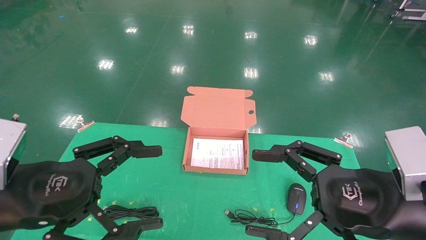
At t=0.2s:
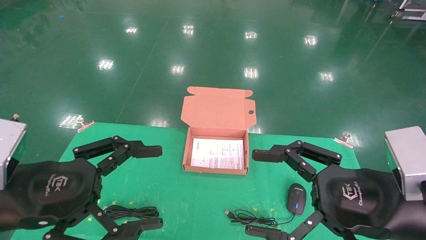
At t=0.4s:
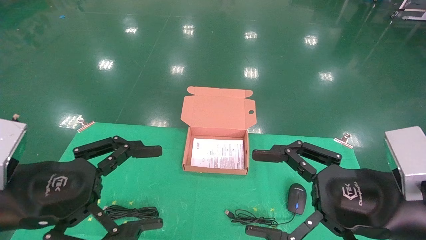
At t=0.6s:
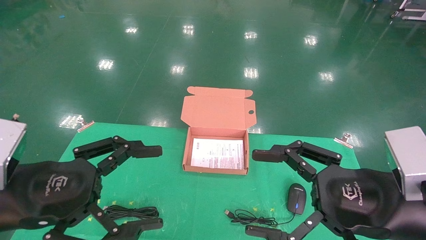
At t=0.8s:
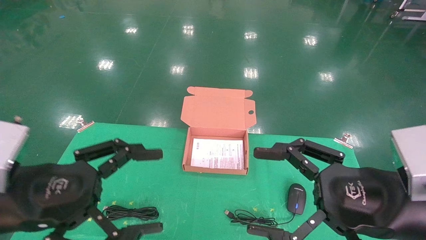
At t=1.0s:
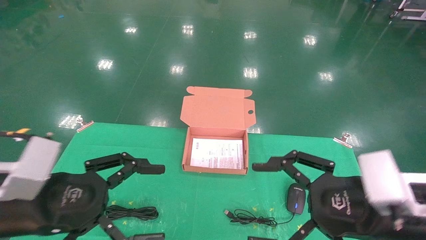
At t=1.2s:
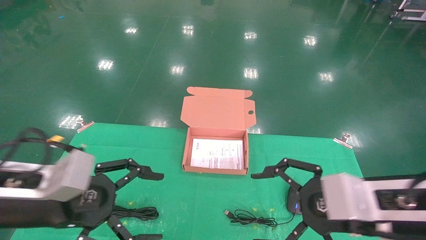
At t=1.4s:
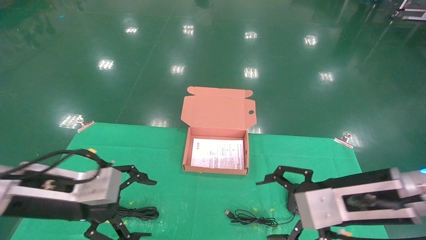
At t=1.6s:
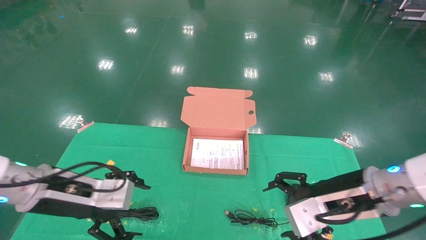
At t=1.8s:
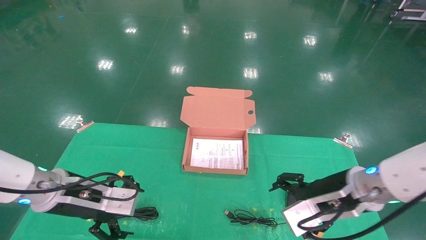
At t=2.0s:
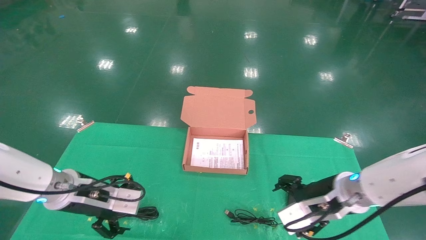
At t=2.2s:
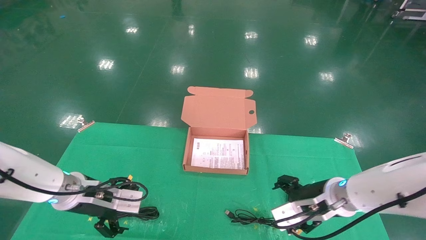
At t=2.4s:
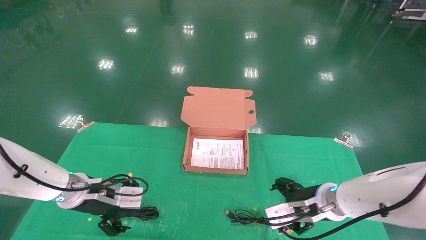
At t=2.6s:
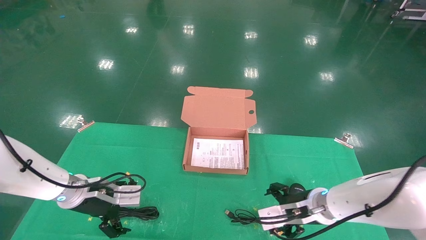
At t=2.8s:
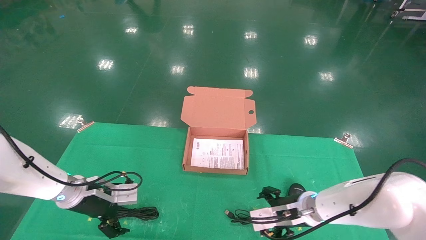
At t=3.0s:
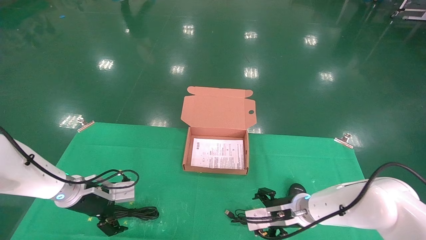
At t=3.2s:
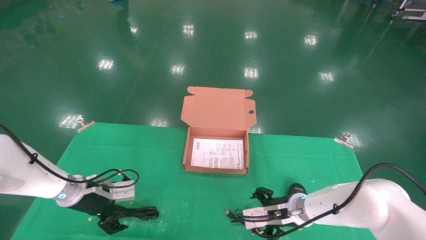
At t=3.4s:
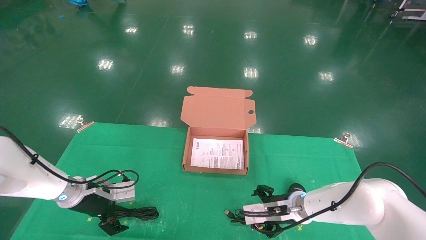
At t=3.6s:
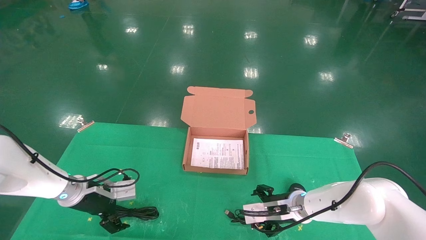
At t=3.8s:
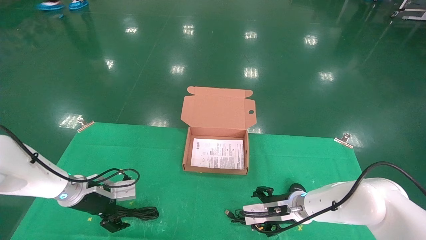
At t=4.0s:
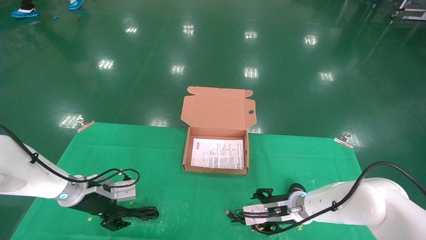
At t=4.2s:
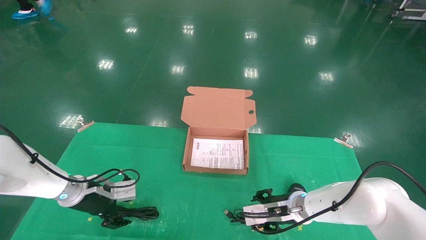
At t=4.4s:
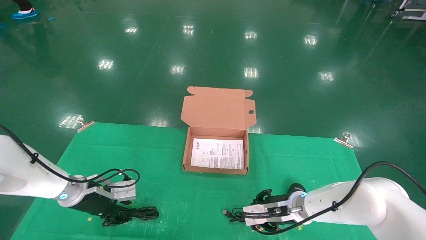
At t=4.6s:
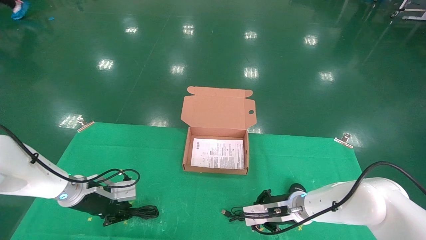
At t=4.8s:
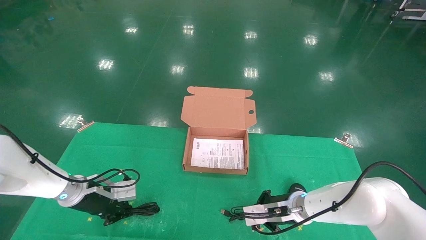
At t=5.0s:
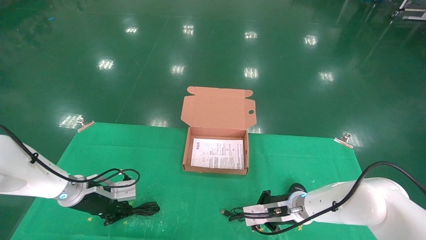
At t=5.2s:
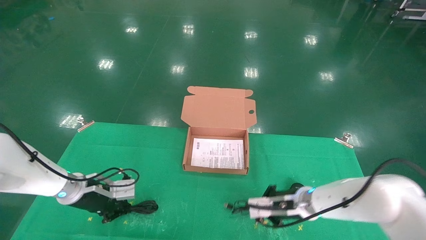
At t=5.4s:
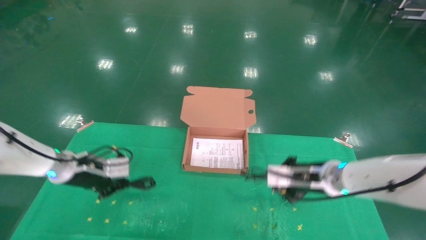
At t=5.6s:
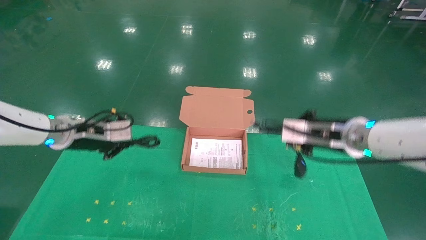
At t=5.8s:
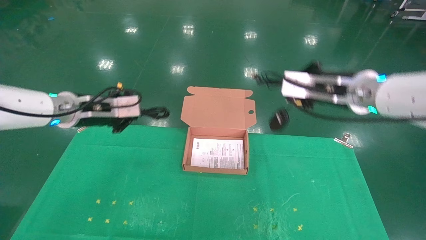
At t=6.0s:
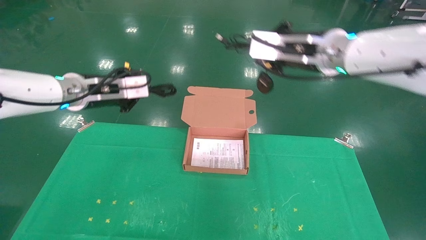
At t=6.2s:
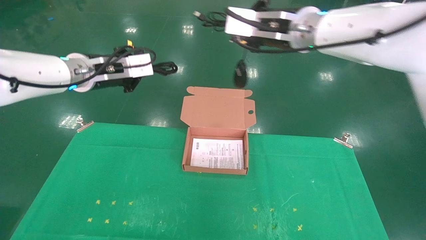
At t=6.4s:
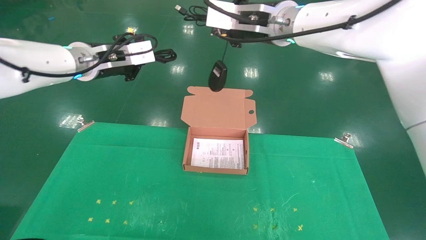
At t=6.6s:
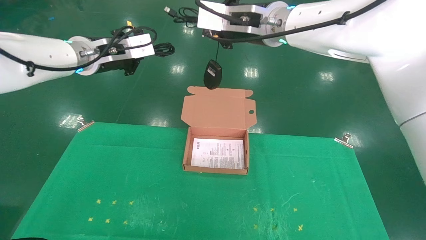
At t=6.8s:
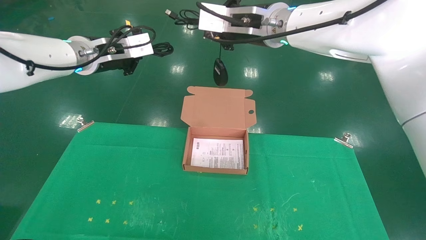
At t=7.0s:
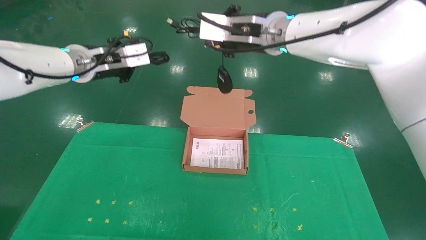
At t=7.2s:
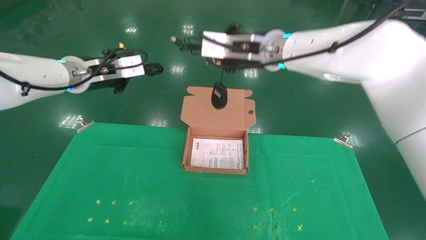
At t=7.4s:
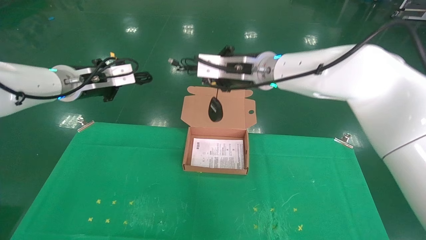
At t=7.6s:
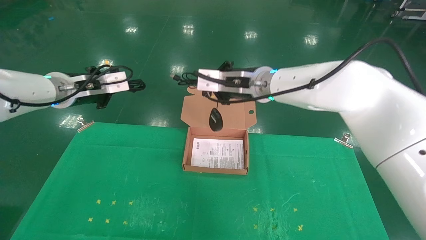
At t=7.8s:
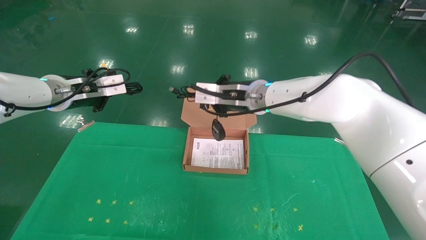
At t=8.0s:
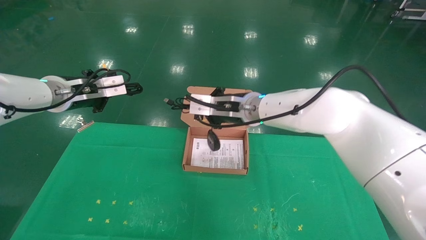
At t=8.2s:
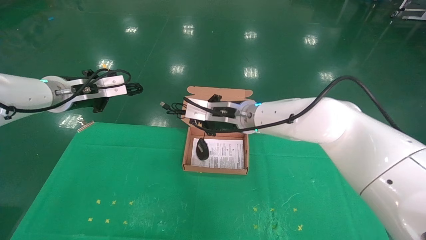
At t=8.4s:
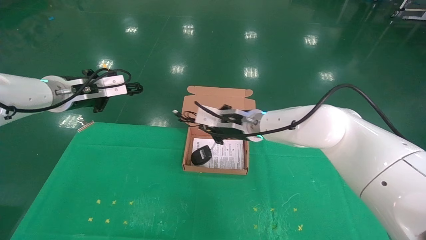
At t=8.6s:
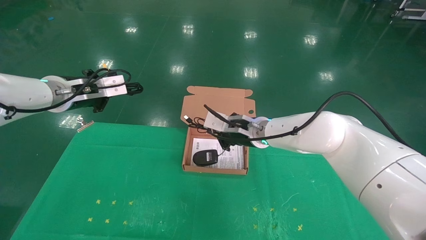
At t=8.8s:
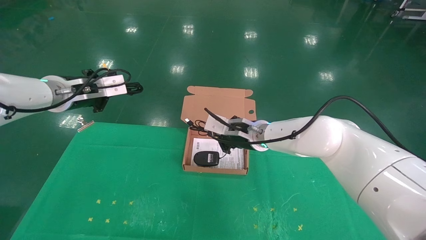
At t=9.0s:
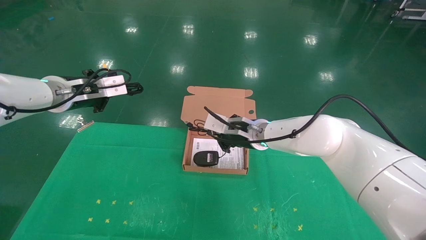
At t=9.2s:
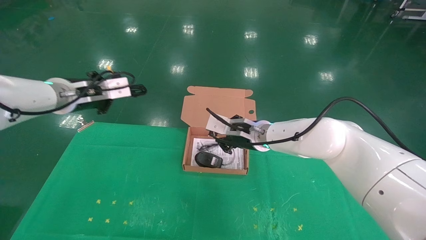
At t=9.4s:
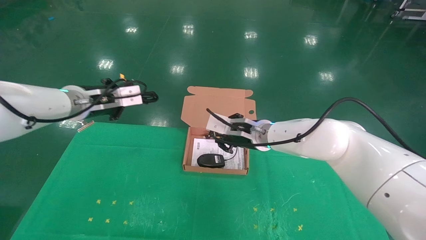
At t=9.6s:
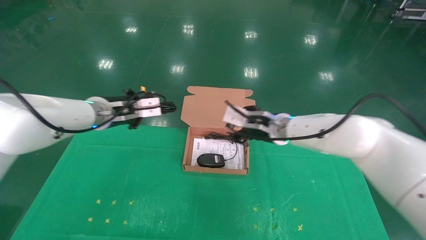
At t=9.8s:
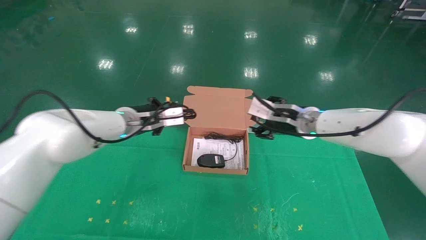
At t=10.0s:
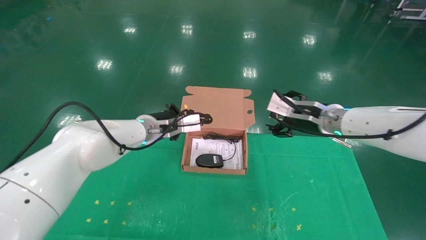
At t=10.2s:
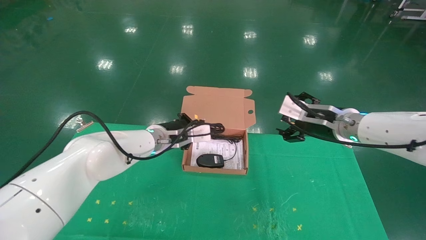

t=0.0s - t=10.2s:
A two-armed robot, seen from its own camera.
Task of the whole recording: grasp data cable left put into box grasp mouse right put into box.
Step, t=1.0s - t=4.8s: Grab and pick up both the mouse and power cord from the accessory packaging area at the same time.
t=0.0s - t=1.4s: Both grippers travel together forward, about 5 cm.
t=1.4s - t=3.0s: The right gripper goes approximately 20 cm downward and forward. The left gripper goes approximately 20 cm forward and downward.
t=3.0s - t=4.4s: The right gripper closes, while the left gripper closes up.
t=4.4s - t=5.8s: Both grippers travel together upward, some 25 cm. The left gripper closes up; the right gripper closes.
t=5.8s - t=7.2s: The right gripper shifts some 15 cm to the left and upward; the left gripper shifts some 5 cm upward.
t=7.2s - t=8.8s: The right gripper travels downward by about 20 cm.
t=8.8s - t=10.2s: The right gripper travels to the right by some 15 cm, and opens, while the left gripper heads to the right and downward, covering approximately 20 cm.

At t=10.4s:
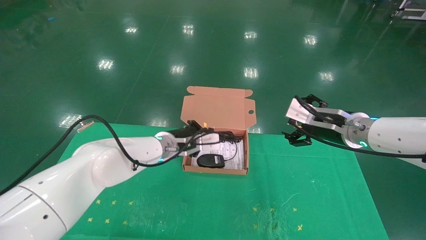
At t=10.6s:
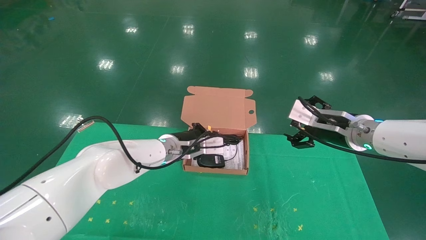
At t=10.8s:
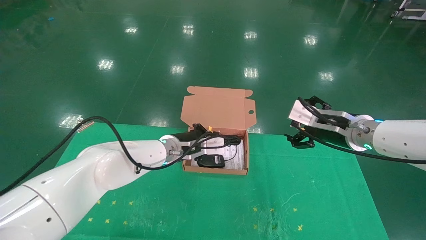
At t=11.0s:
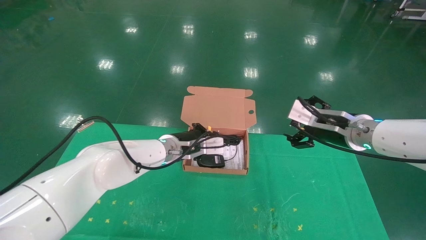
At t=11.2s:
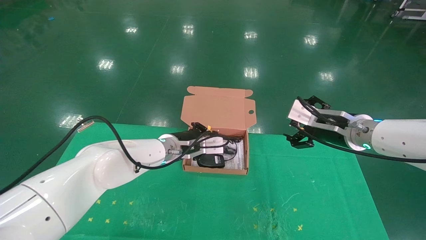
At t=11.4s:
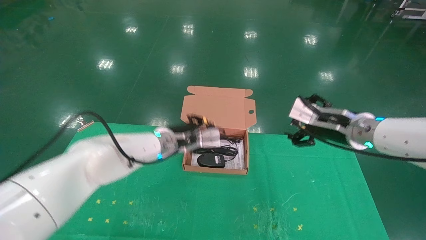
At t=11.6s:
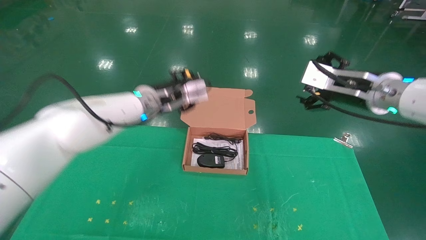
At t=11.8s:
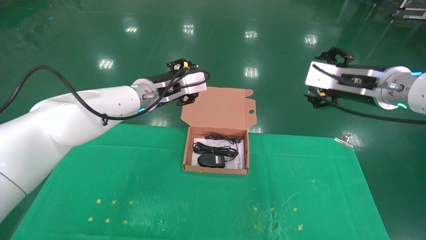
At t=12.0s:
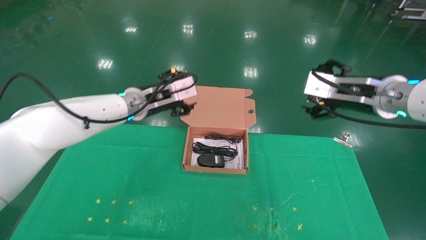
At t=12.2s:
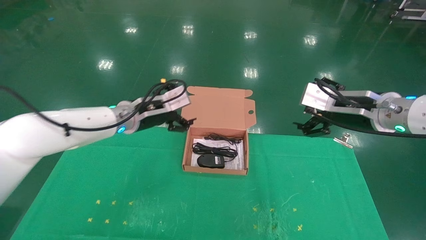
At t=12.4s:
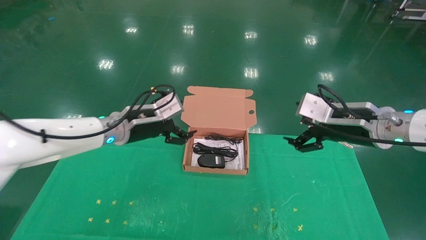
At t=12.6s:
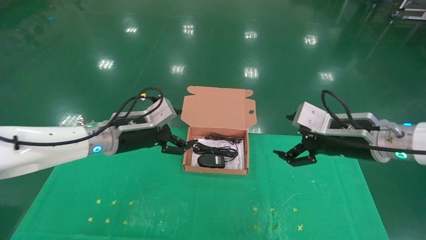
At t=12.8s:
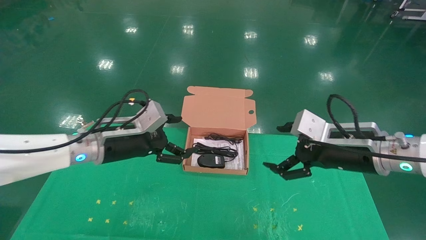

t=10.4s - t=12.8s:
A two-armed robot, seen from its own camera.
Task of the whole recording: grasp data cable left put into box grasp mouse right put into box.
t=10.4s - t=11.6s: Both grippers move upward, approximately 10 cm. The left gripper opens.
t=11.6s - t=12.8s: The left gripper heads backward and to the left, covering roughly 10 cm, and opens up; the right gripper is displaced downward and backward by about 10 cm.
